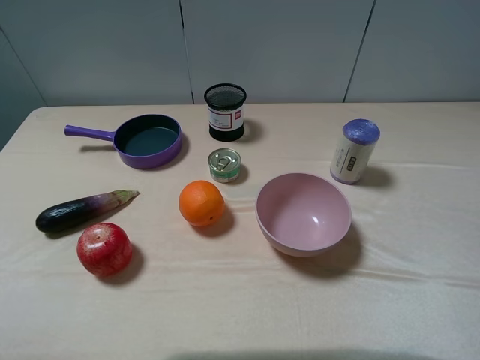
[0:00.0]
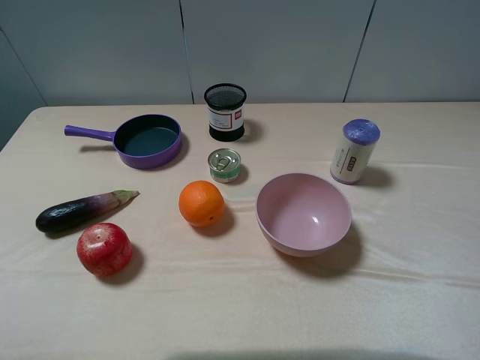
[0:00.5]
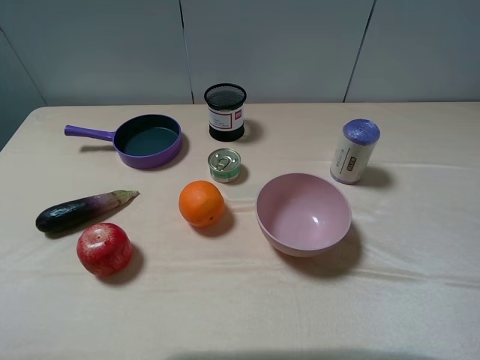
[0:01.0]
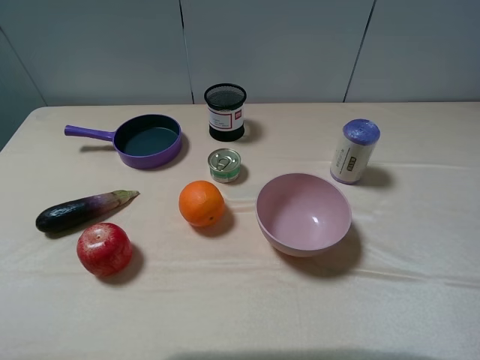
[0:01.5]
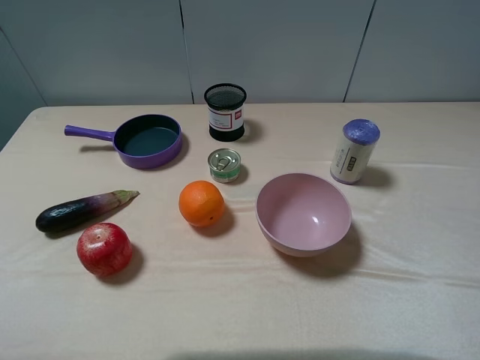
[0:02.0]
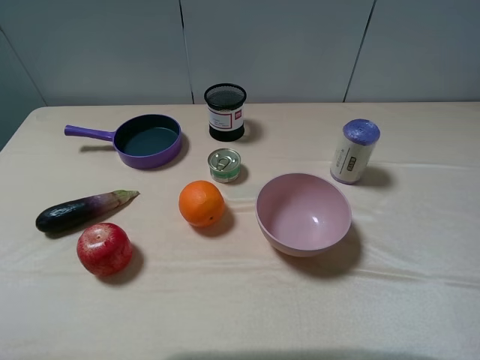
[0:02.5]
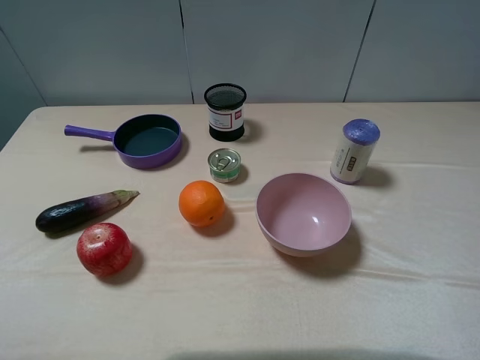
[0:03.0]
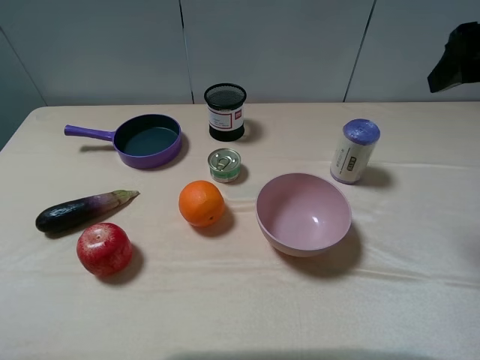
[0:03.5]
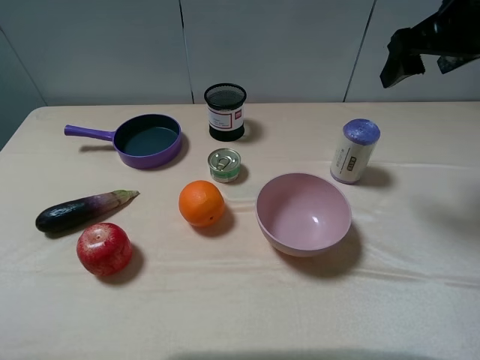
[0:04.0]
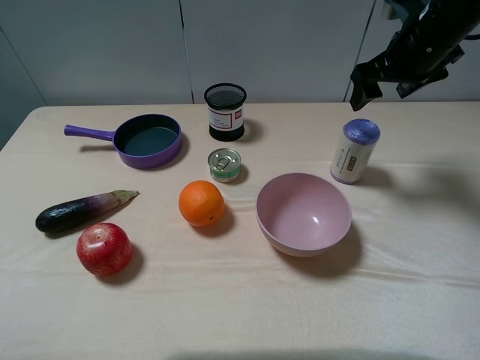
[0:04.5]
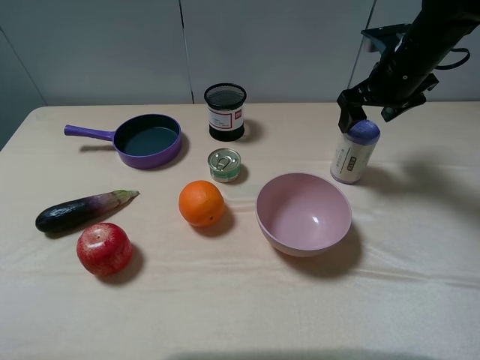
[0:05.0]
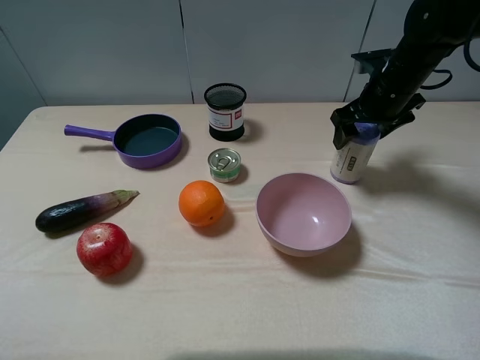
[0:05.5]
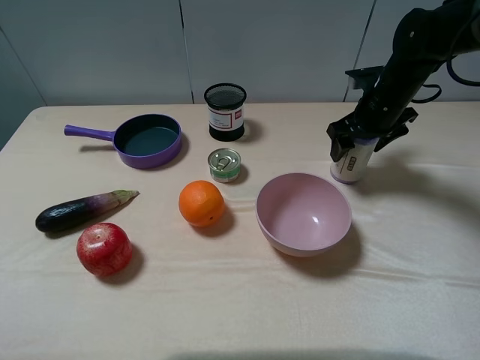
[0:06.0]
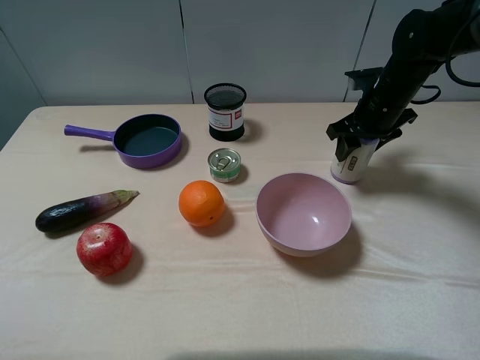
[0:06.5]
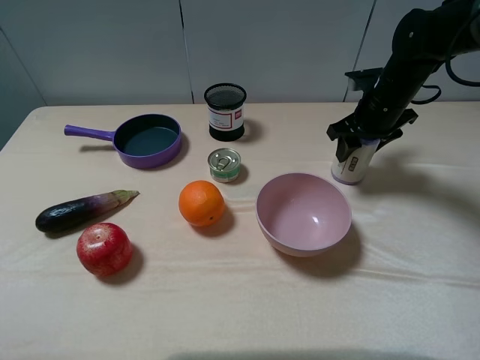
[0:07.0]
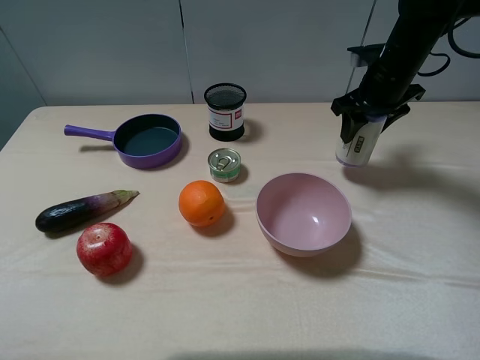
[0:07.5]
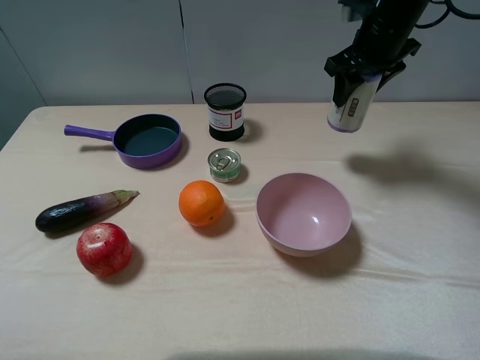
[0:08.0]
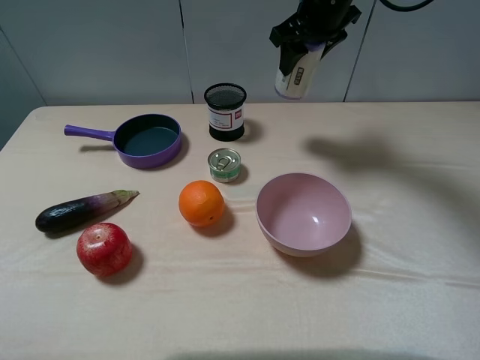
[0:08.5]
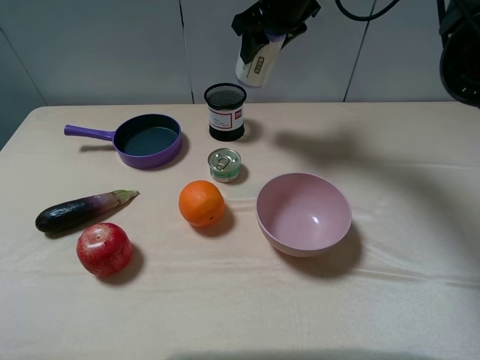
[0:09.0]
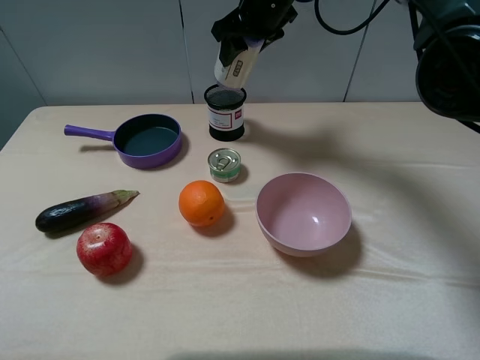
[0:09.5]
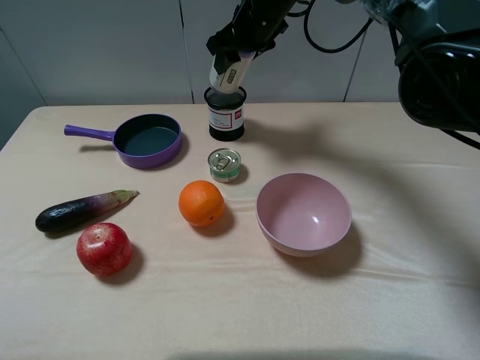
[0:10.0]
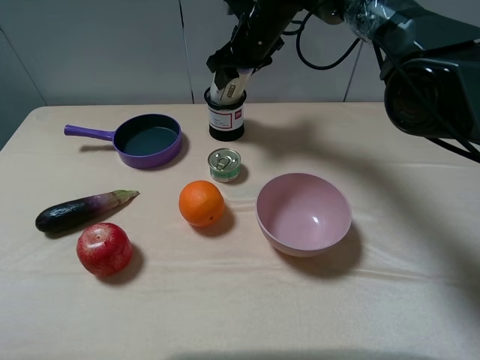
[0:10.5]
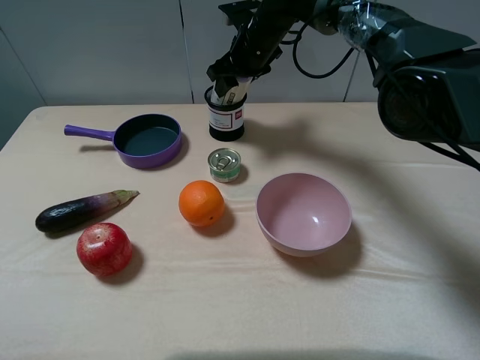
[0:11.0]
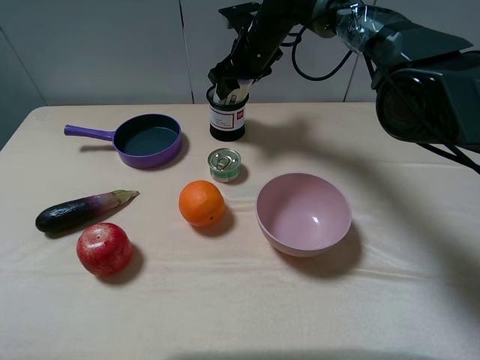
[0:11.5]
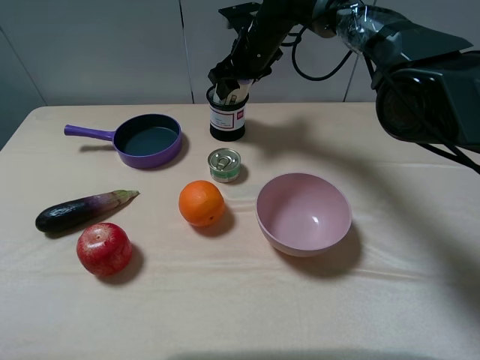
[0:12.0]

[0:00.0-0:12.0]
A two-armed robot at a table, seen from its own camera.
Task of the whole recording: pick up an item with a gripper and place it in a random container on the table.
Step, 0:00.0 to 0:06.5: Grasp the blue garbage bag with the right gripper.
0:02.0 to 0:04.0: The right gripper heads forward, covering approximately 30 cm.
0:04.0 to 0:06.0: The right gripper is displaced downward and forward by some 20 cm.
0:06.0 to 0:08.0: The right gripper is displaced upward by some 10 cm, and closes its fingers.
0:08.0 to 0:10.0: The right gripper moves to the left, some 15 cm.
0:10.0 to 0:12.0: The right gripper heads downward, covering approximately 5 cm.

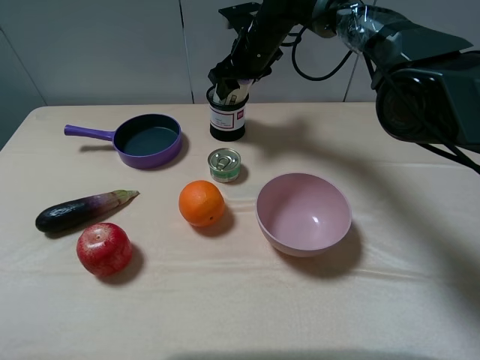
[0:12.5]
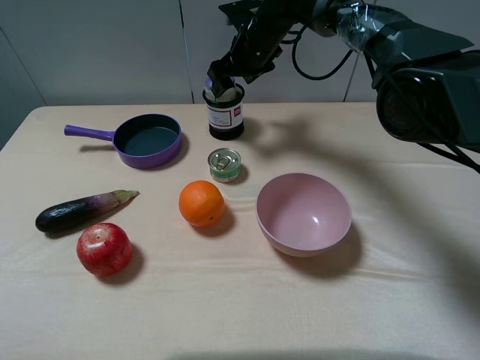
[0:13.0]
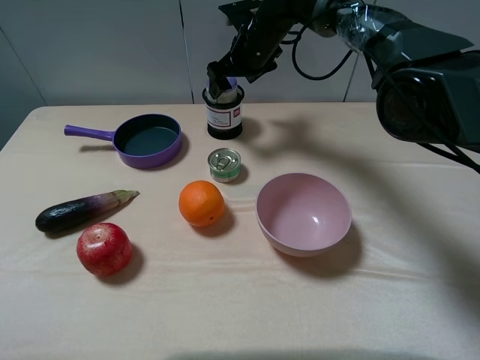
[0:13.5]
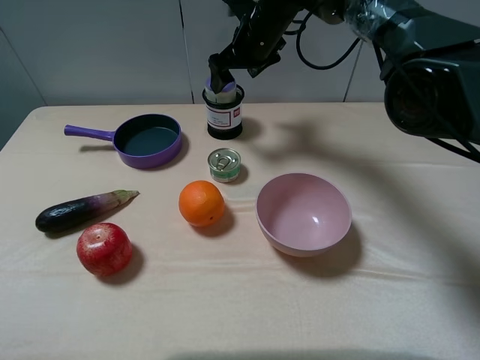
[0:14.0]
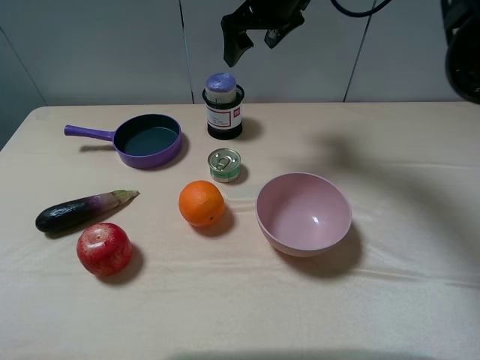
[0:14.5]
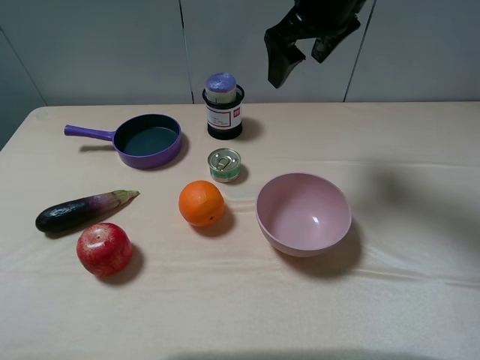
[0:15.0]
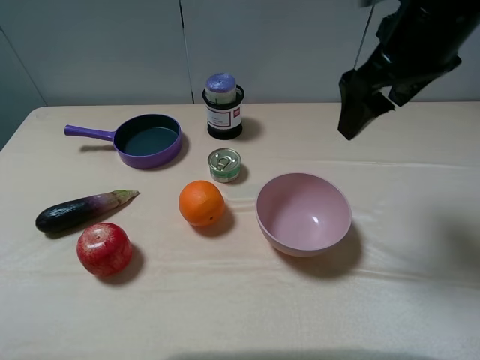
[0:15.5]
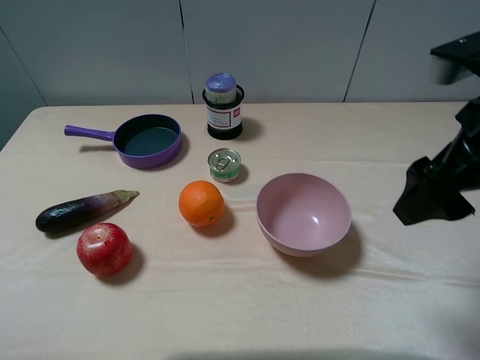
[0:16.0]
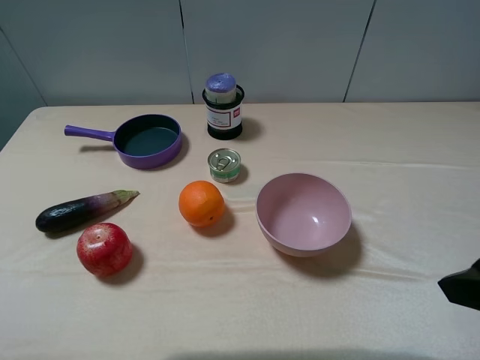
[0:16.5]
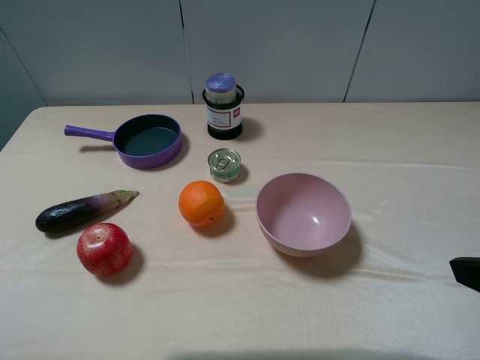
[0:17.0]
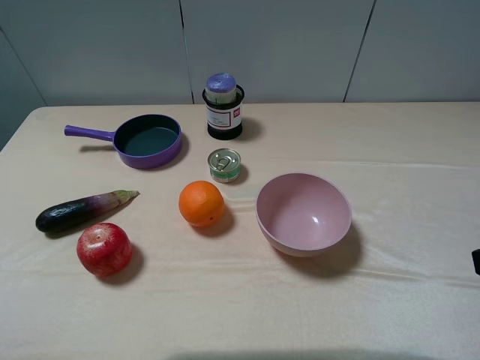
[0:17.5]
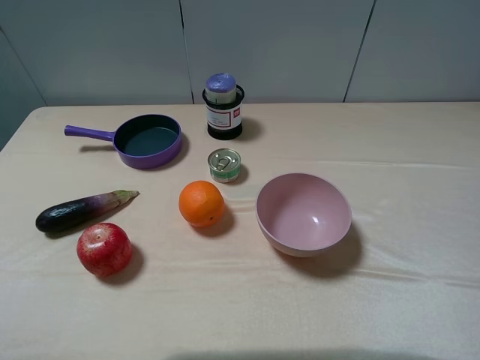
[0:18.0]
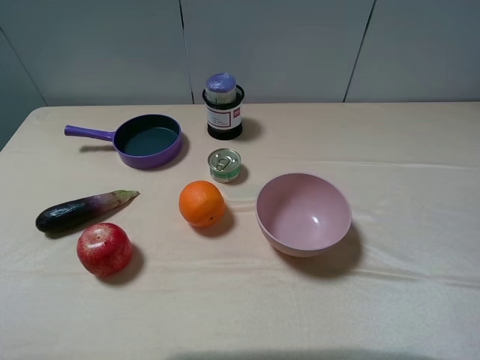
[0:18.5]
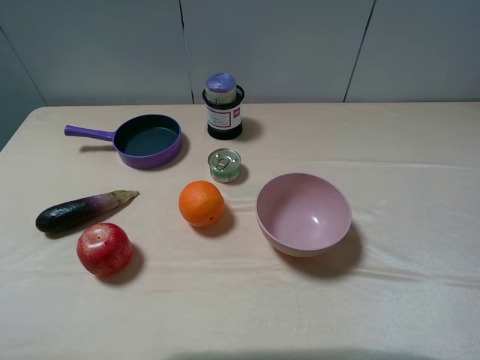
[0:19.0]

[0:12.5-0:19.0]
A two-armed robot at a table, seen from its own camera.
Task of the whole recording: pick up an item with a gripper and place it in a random container on the table.
0:12.5 to 0:14.5: The right gripper heads upward, covering roughly 10 cm, and opens up.
0:14.5 to 0:17.0: The right gripper is displaced backward and to the right by approximately 40 cm.

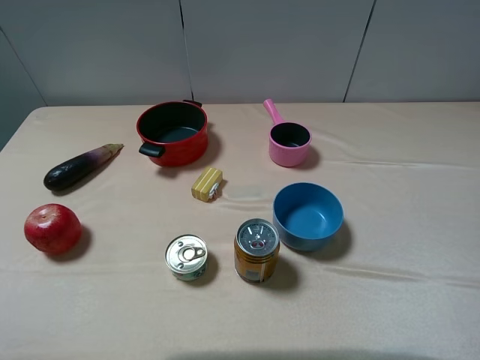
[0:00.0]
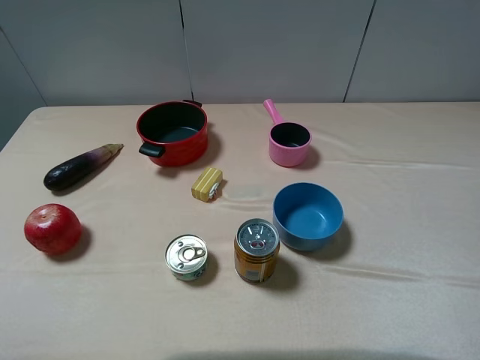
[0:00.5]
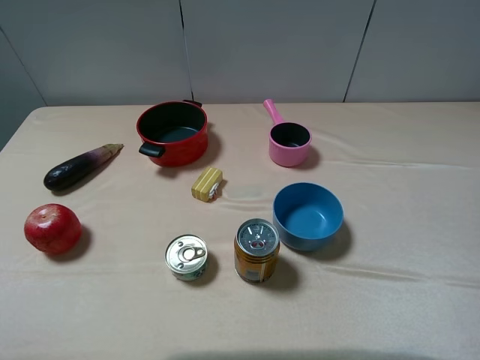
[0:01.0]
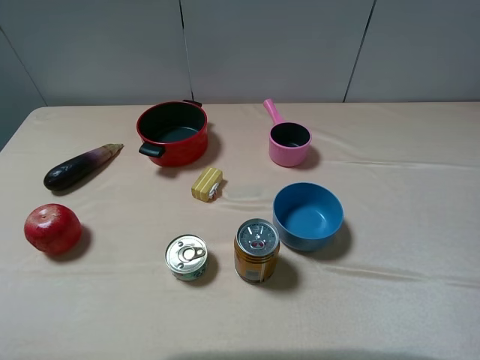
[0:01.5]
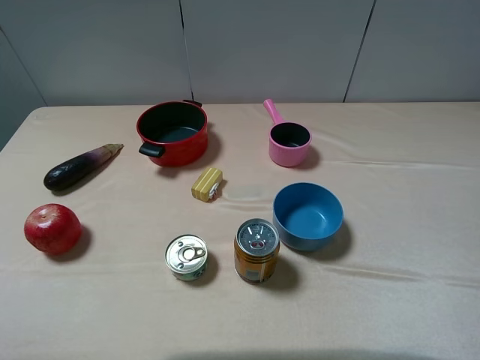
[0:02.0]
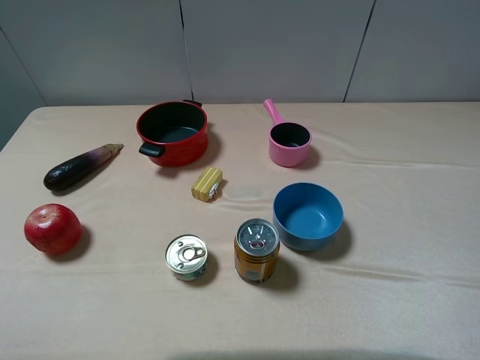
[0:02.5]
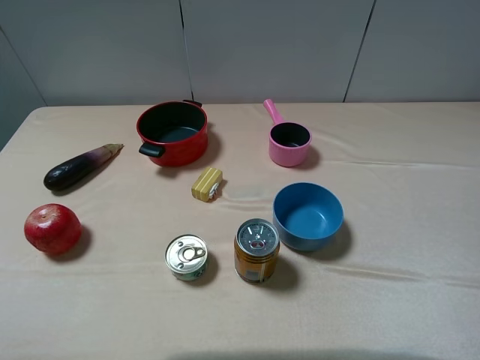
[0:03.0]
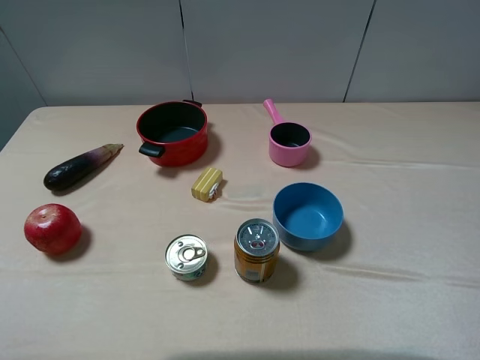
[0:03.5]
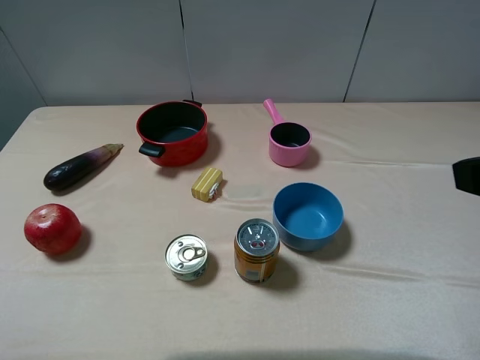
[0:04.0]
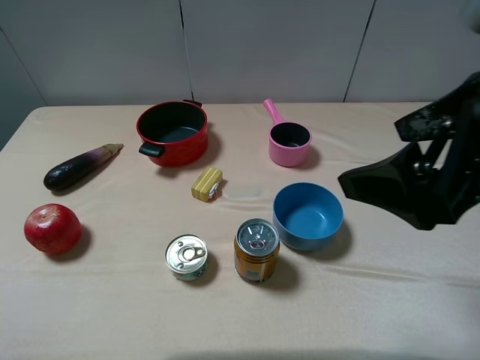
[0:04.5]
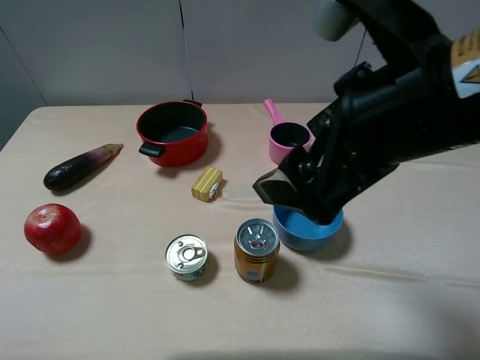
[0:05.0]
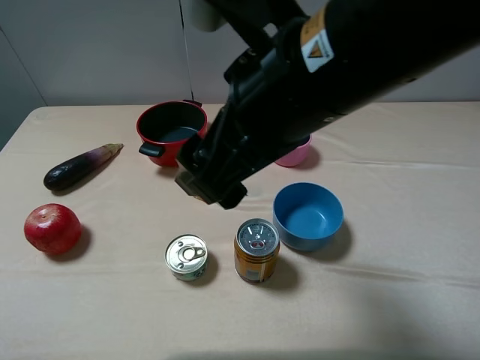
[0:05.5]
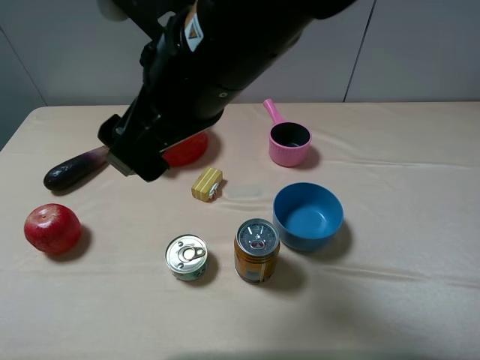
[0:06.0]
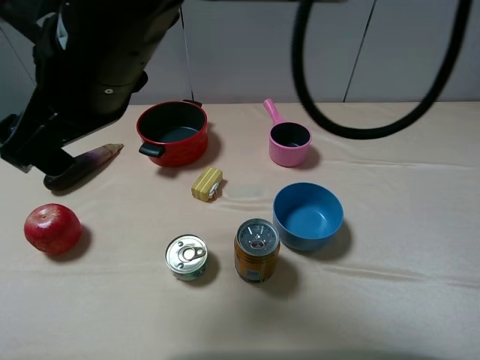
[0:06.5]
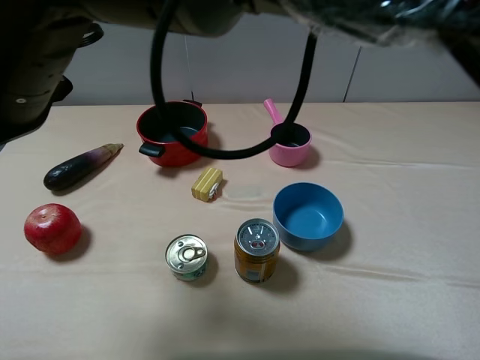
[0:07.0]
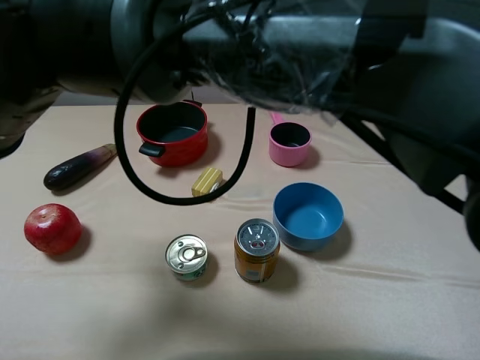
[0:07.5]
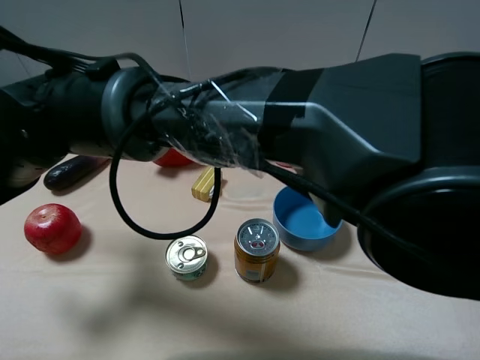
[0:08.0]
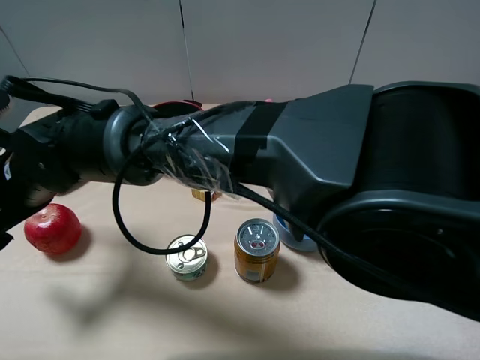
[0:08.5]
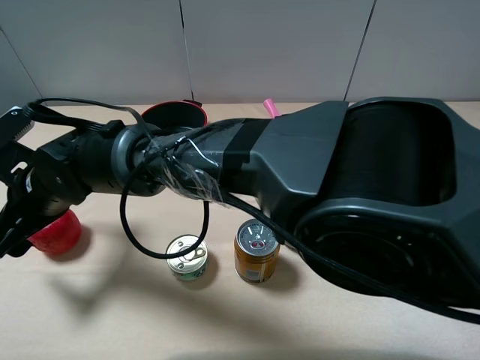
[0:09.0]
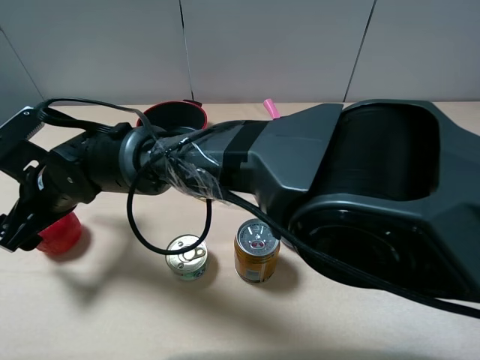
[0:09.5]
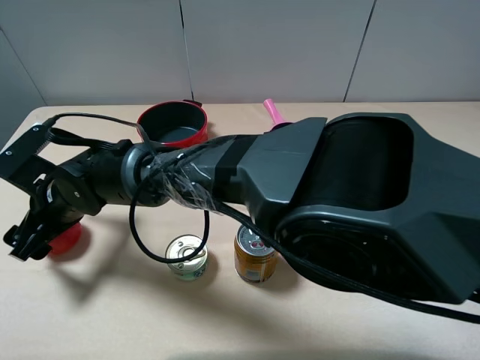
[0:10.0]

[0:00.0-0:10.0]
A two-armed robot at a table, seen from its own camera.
Task of the whole recording: pick up an item with a gripper and place it in a random container on the table.
0:00.0 to 0:02.0: Both grippers stay about where they are.
0:04.0 to 0:06.0: The right gripper heads to the left, covering some 30 cm.
0:06.0 to 0:08.0: The right gripper moves to the left and downward, some 20 cm.
0:08.0 to 0:10.0: The right gripper is displaced downward by approximately 10 cm.
